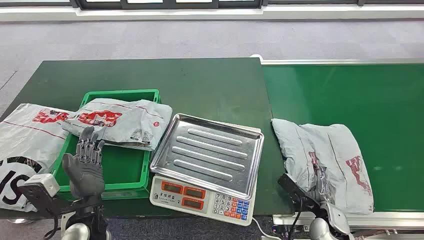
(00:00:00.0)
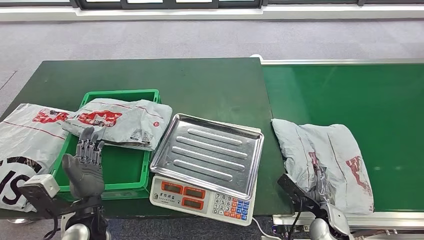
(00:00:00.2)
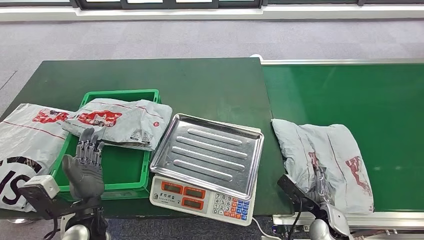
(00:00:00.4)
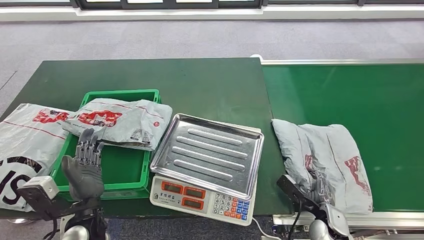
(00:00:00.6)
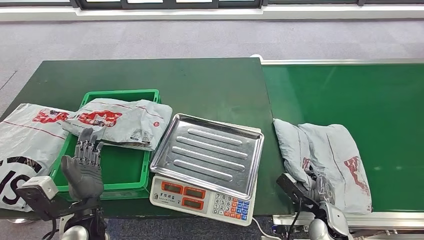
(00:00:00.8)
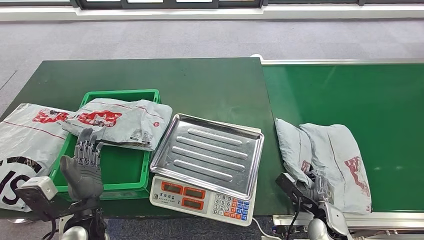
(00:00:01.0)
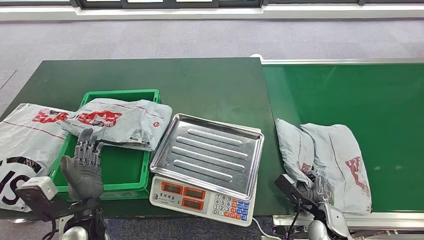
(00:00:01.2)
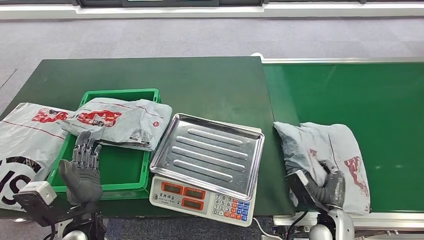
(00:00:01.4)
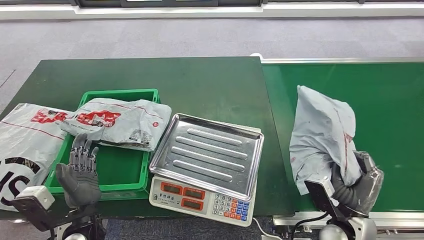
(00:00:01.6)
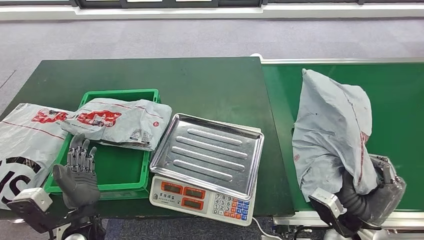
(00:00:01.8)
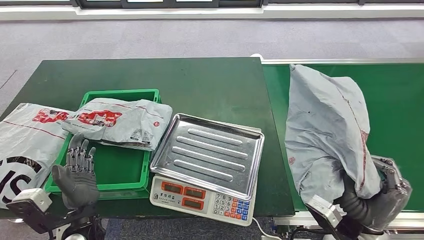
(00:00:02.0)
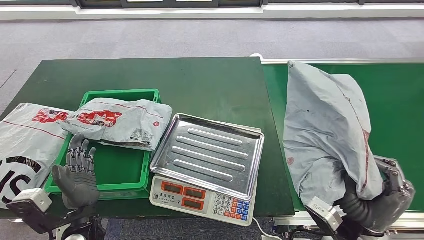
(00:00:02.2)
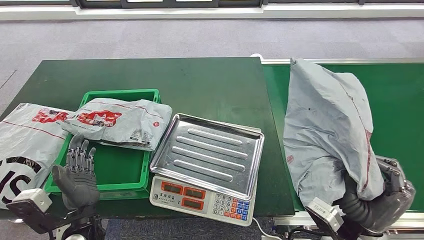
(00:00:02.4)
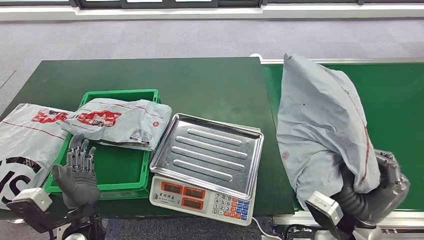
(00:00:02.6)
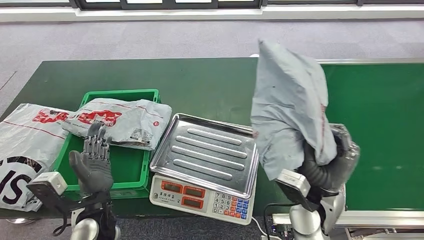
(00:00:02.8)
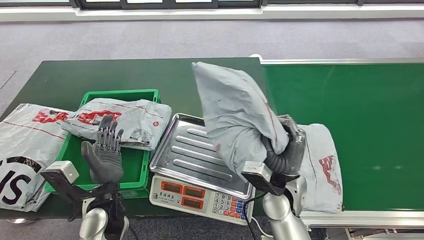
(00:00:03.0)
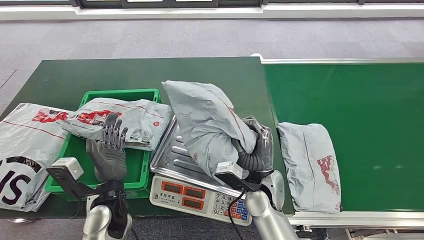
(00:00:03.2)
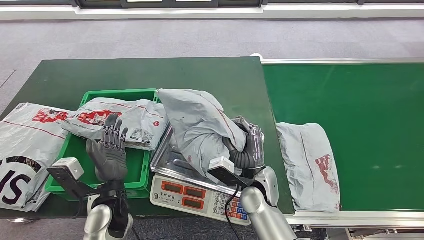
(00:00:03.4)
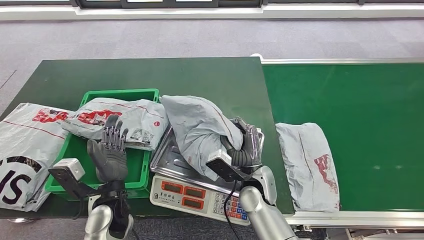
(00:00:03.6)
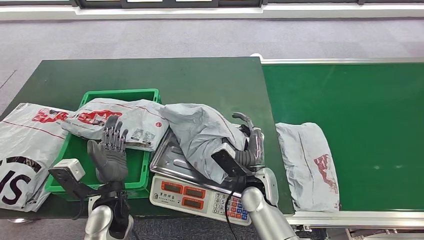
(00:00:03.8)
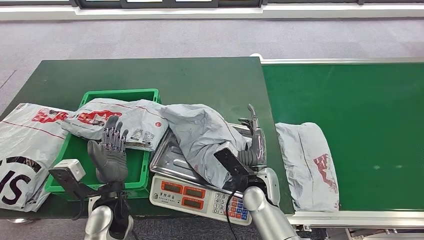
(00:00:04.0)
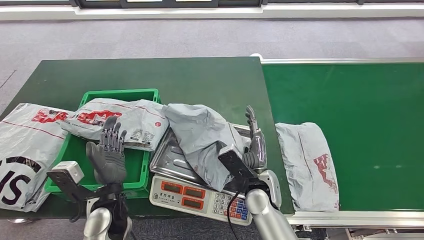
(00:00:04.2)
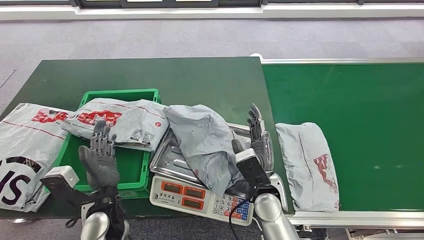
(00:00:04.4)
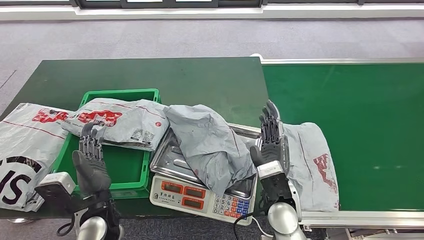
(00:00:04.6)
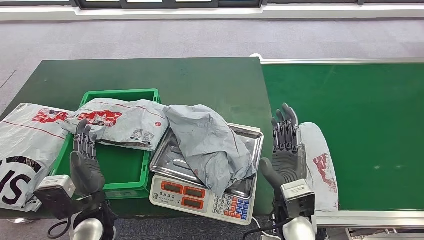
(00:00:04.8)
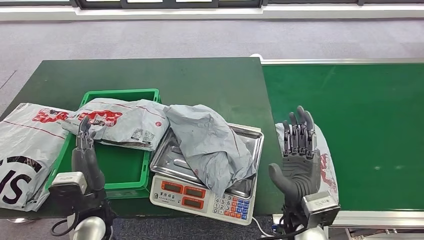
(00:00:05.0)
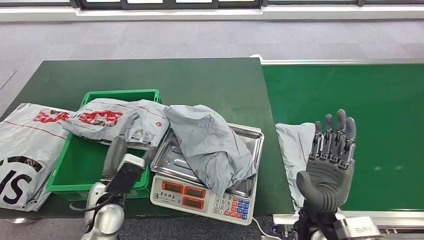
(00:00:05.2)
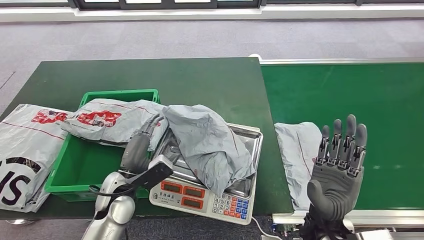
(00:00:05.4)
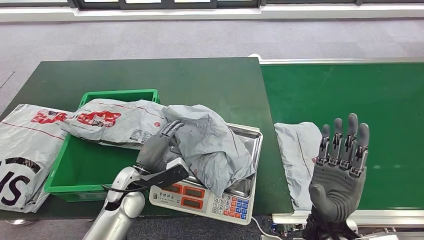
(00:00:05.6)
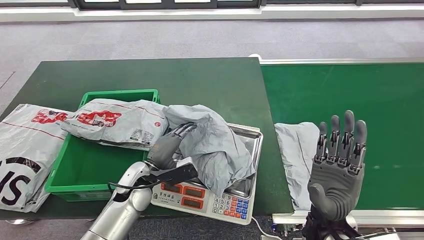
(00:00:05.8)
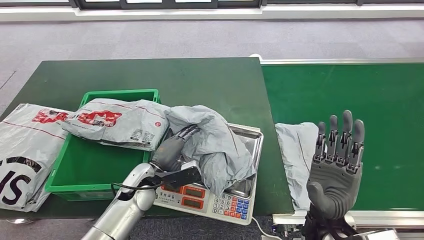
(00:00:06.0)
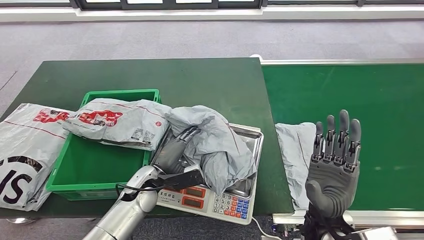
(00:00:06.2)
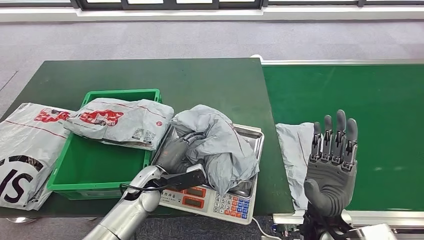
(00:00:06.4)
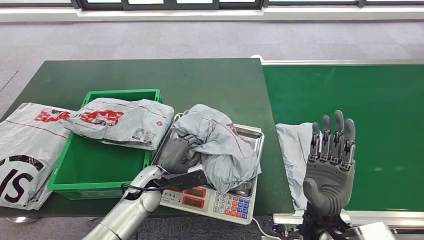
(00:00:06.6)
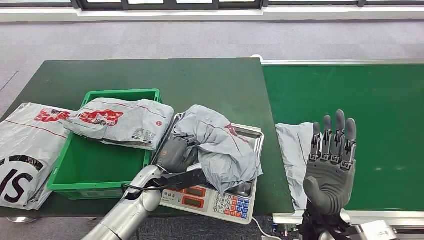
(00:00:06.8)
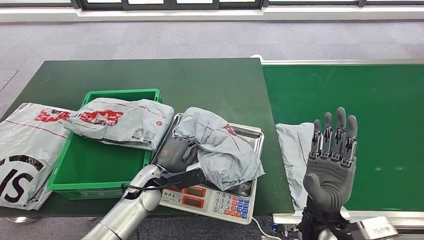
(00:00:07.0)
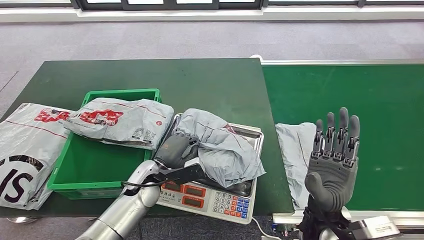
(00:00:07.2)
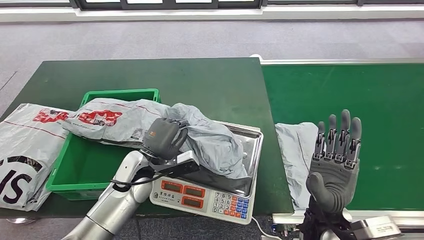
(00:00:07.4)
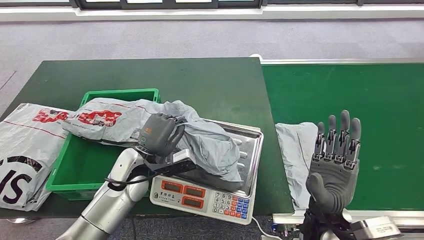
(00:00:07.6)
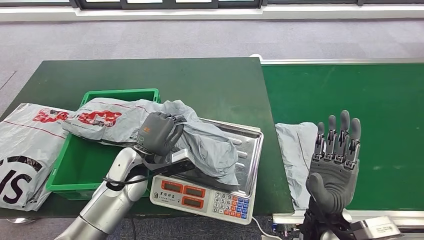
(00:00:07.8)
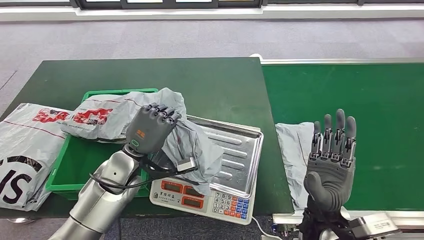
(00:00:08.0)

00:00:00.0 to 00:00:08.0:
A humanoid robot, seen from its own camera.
Task of the whole recording: Weigh the package on the weighing device and place it in the left basket.
Step, 00:00:00.0 to 00:00:02.2: Pick up the package from the conveyor belt.
Step, 00:00:02.4 to 00:00:04.6: Place the package onto the inbound machine.
Step, 00:00:05.0 to 00:00:08.0: Pick up the package from the inbound machine.
00:00:03.2 to 00:00:04.8: The right hand goes roughly 5 cm backward.

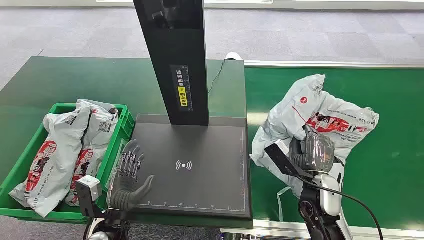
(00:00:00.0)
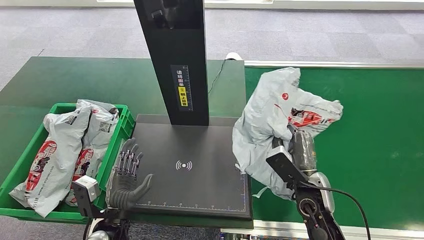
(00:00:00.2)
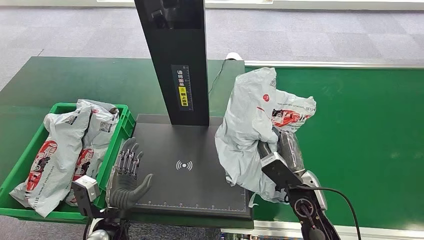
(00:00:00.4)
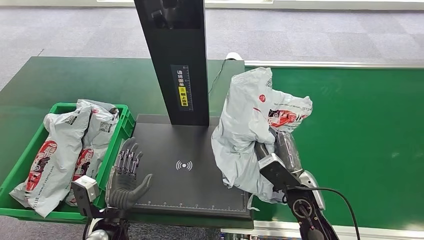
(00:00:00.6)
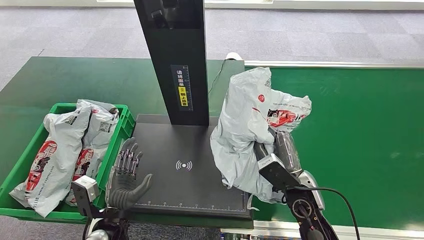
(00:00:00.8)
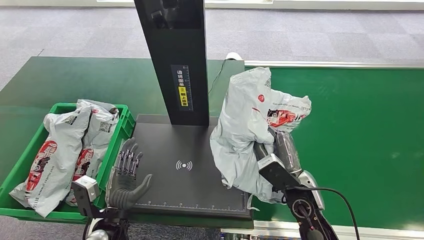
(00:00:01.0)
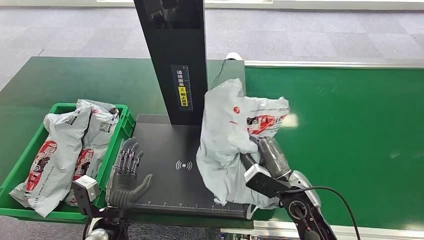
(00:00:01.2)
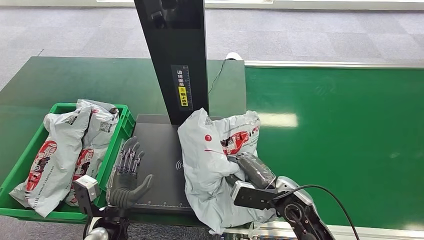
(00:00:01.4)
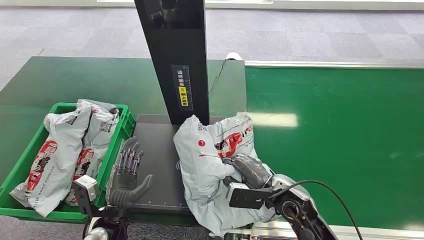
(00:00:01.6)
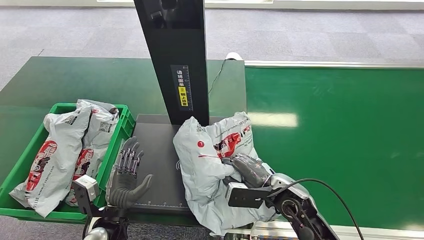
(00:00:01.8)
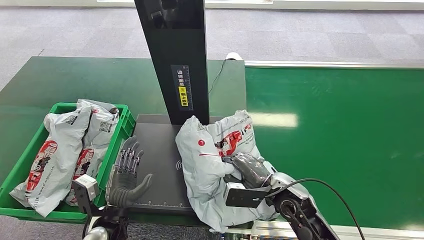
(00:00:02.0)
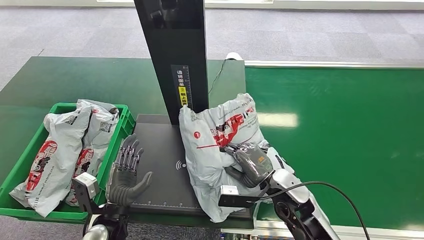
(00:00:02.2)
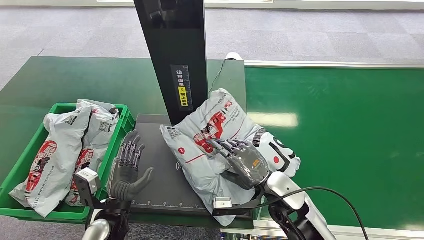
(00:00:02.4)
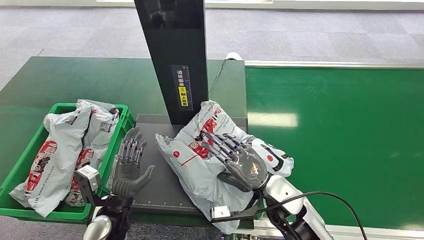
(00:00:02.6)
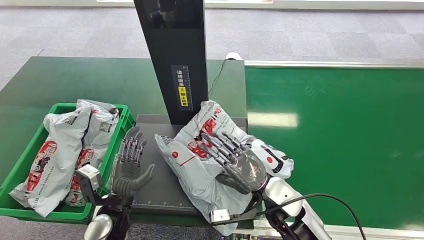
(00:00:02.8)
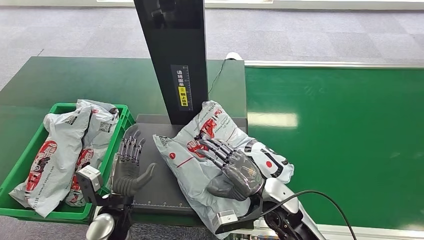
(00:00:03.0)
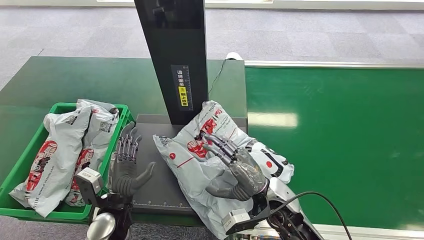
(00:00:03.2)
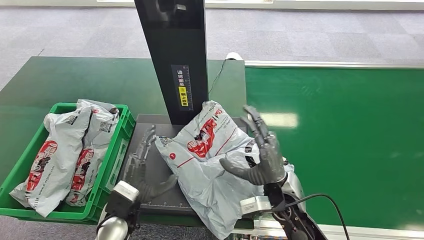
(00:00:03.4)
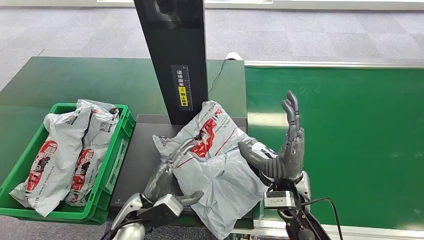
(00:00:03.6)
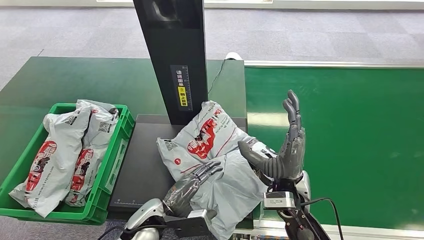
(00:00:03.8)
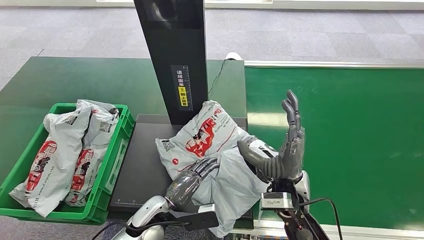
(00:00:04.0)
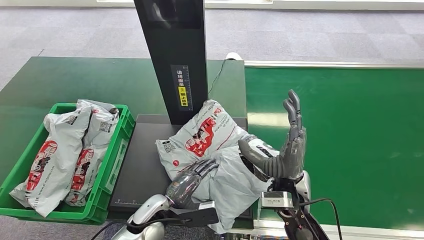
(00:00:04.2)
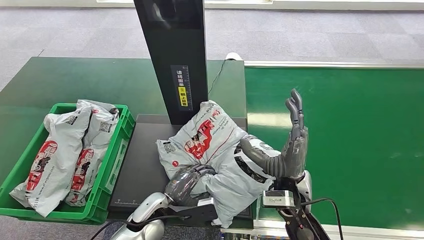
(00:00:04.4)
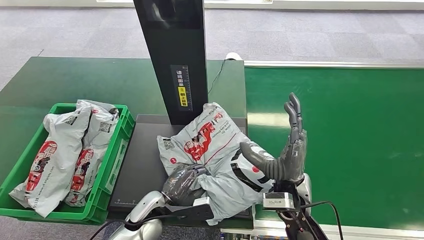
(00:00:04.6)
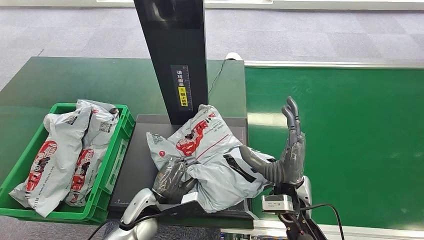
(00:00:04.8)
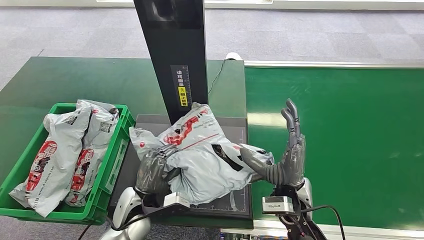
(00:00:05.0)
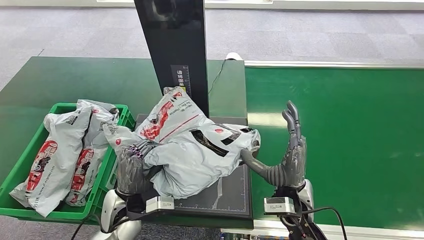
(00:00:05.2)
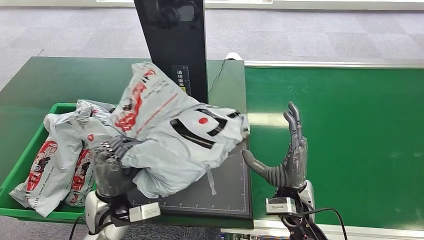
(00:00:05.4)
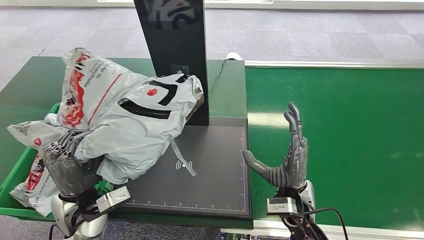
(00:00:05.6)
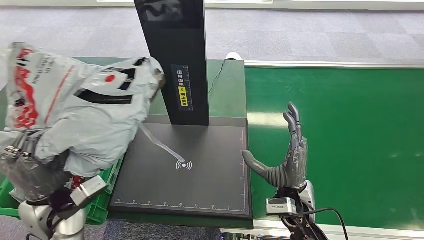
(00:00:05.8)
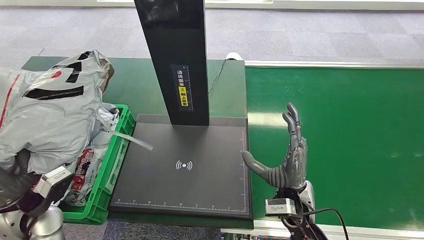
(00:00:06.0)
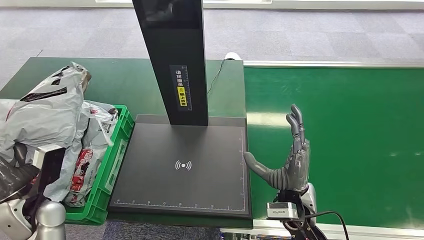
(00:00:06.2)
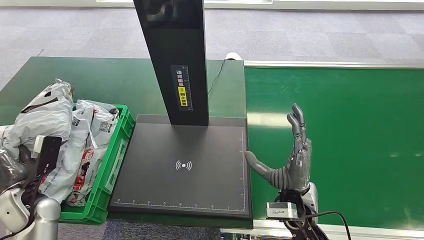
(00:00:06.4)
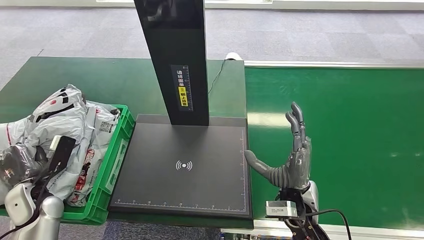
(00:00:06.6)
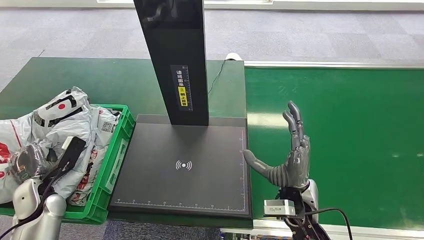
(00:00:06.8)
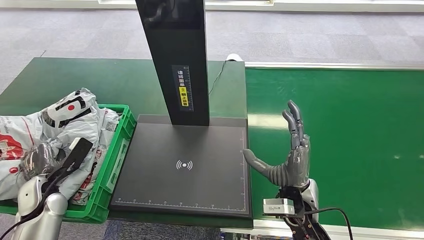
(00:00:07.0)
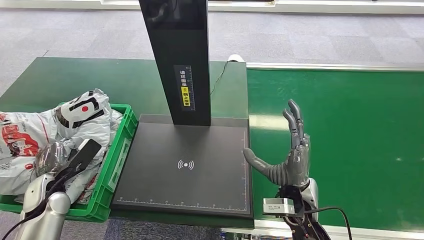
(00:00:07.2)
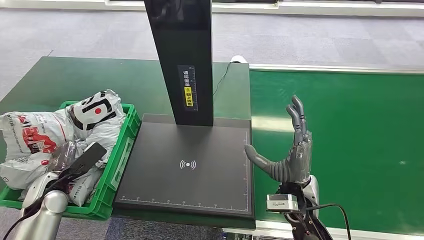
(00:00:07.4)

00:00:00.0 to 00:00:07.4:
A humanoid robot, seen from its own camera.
Task of the whole recording: Weigh the package on the weighing device and place it in the left basket.
Step, 00:00:03.6 to 00:00:03.8: Place the package onto the inbound machine.
00:00:03.0 to 00:00:04.4: The right hand travels upward by some 5 cm, while the left hand goes some 10 cm to the right.
